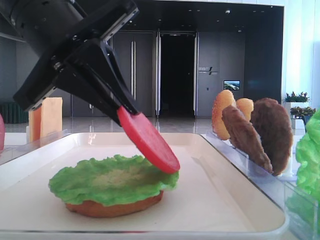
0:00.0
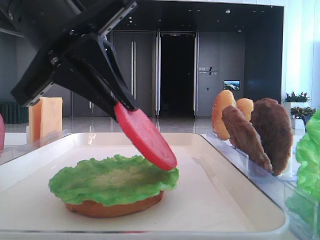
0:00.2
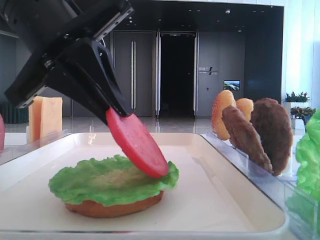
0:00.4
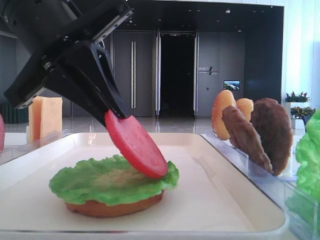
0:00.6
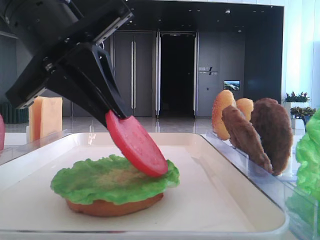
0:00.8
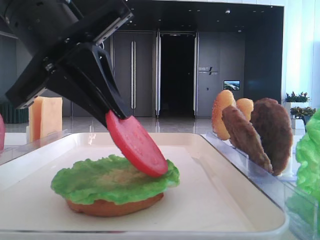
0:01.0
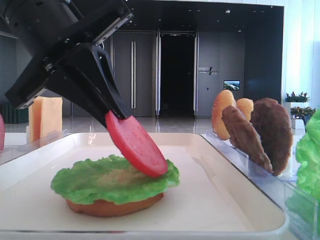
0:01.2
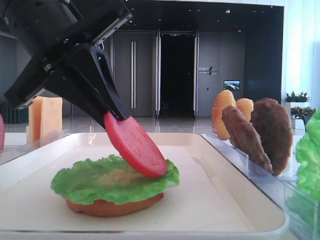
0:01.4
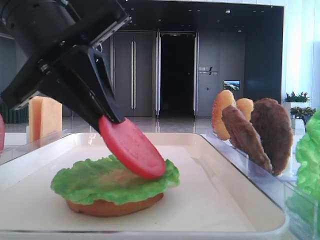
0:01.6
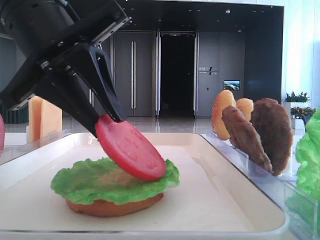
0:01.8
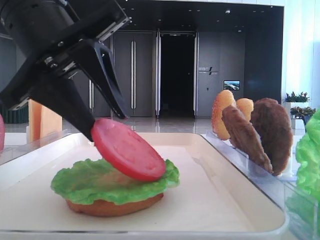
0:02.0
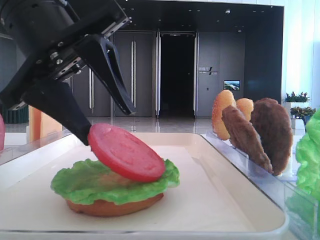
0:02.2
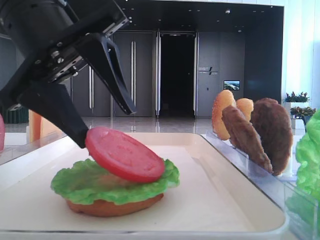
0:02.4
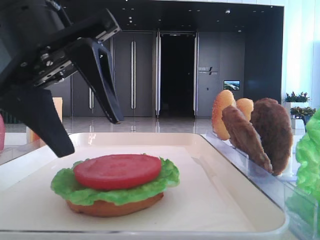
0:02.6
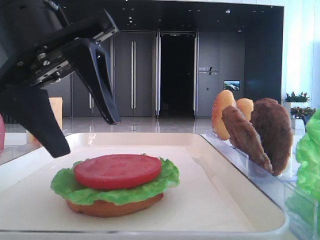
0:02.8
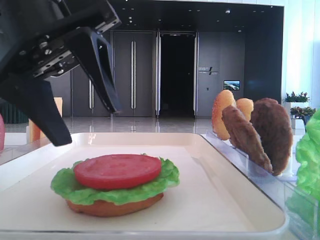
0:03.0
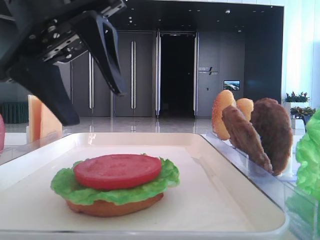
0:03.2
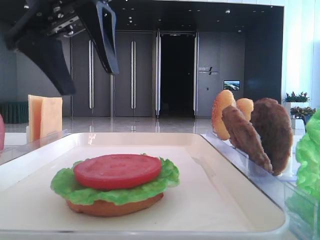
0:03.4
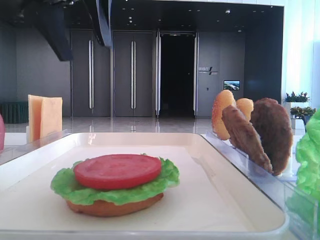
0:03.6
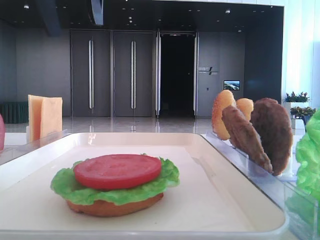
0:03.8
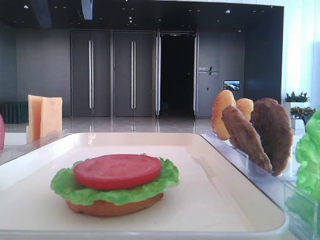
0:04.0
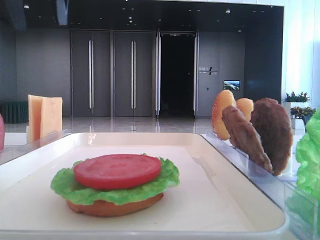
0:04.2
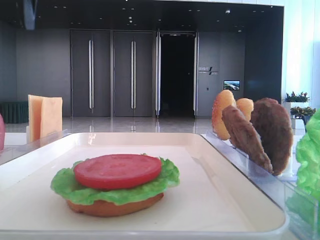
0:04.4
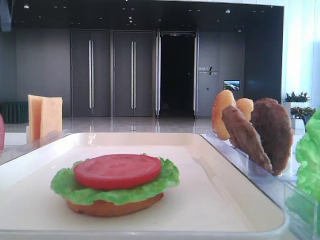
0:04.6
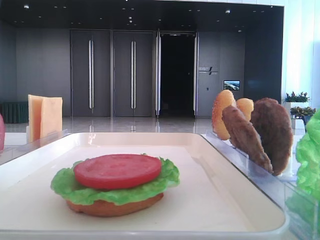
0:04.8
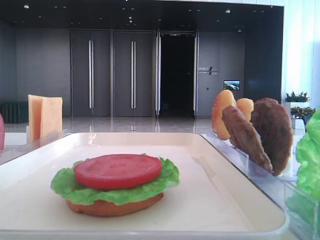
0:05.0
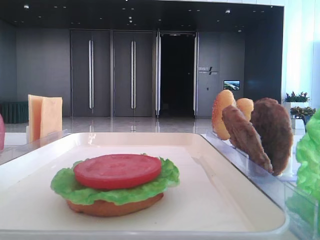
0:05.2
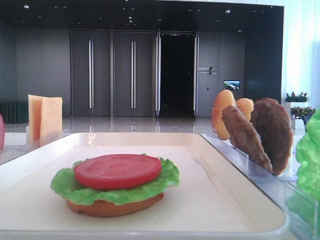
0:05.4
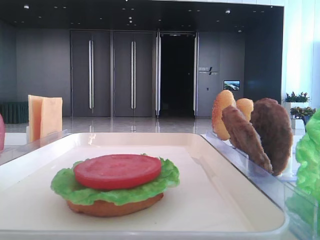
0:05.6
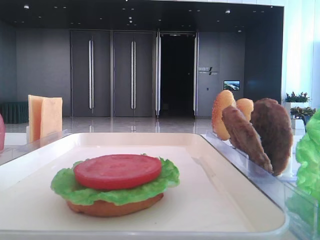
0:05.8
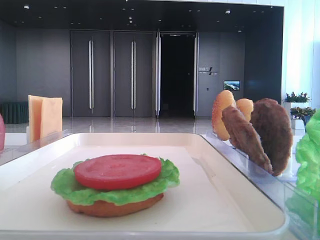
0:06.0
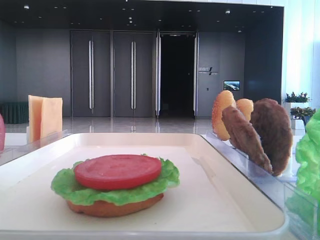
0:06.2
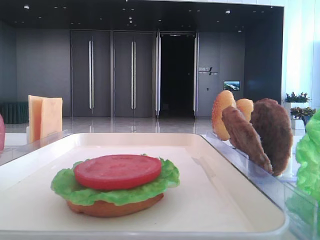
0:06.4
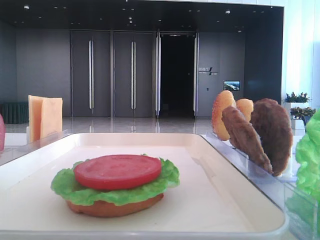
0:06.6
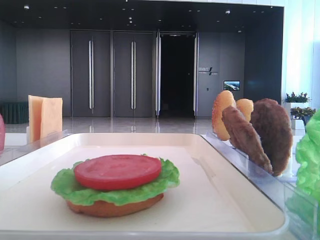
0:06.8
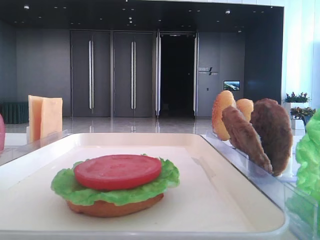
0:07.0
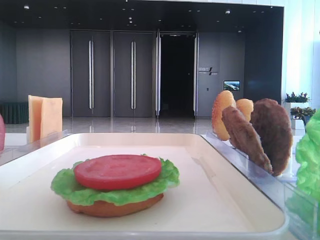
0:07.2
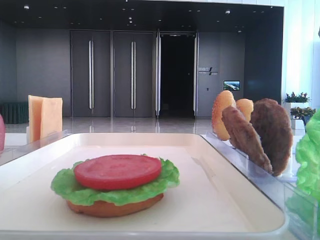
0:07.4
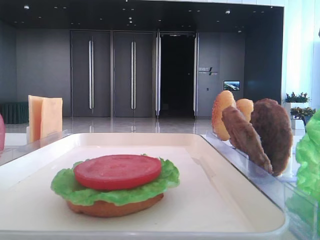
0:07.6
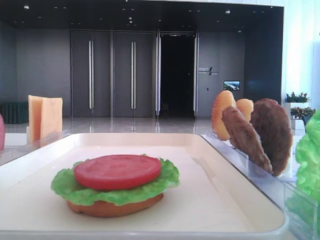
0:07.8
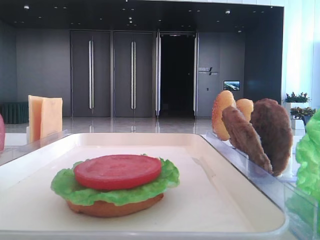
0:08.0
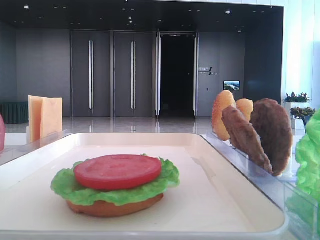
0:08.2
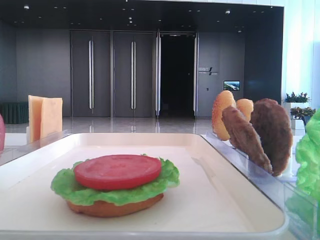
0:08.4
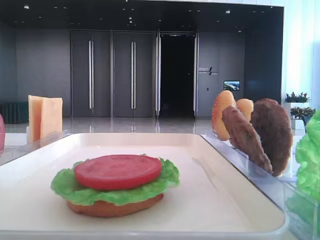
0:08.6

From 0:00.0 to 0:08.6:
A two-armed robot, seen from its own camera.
Step, from 0:00.0 to 0:02.6: Place the tomato slice on the lettuce leaf with the left hand.
From 0:00.0 to 0:01.4: The two grippers keep their place.
From 0:01.4 to 0:02.8: The left gripper opens its fingers.
From 0:02.8 to 0:04.4: The left gripper heads upward, to the left and forward, covering about 20 cm.
From 0:07.2 to 0:08.6: Both grippers stay put.

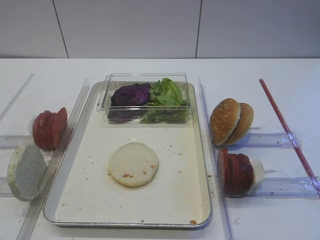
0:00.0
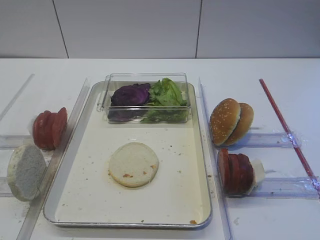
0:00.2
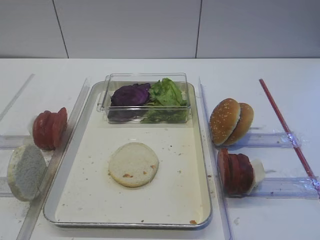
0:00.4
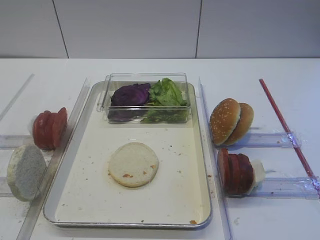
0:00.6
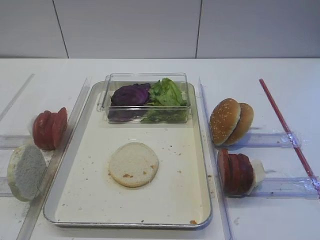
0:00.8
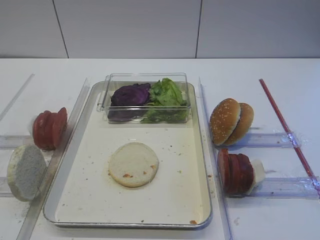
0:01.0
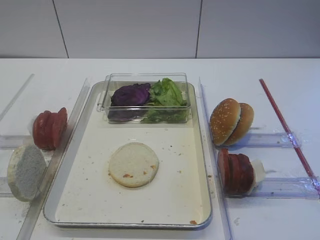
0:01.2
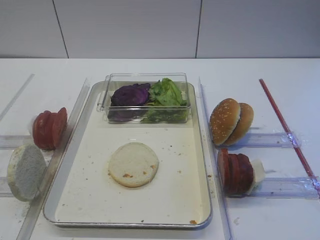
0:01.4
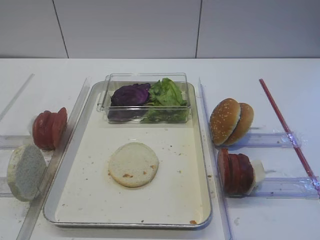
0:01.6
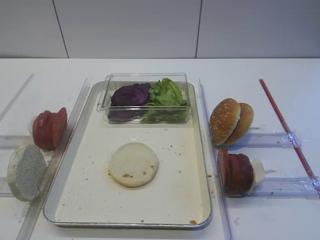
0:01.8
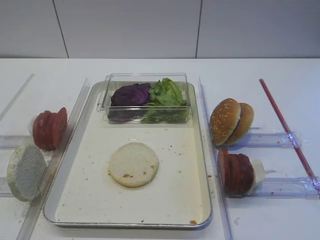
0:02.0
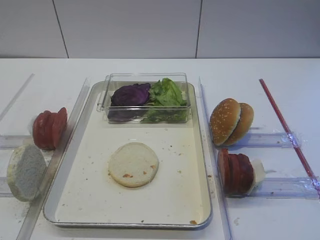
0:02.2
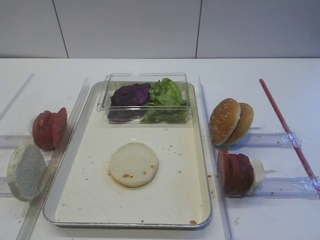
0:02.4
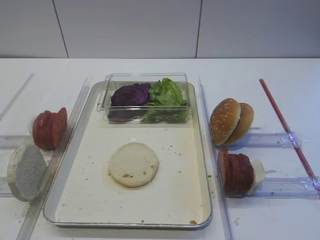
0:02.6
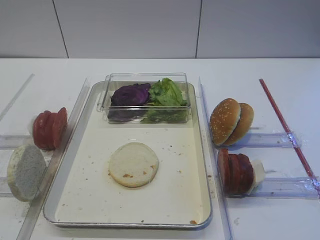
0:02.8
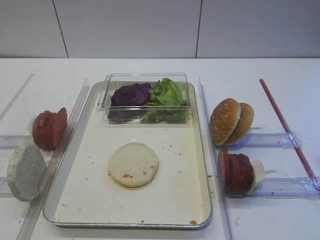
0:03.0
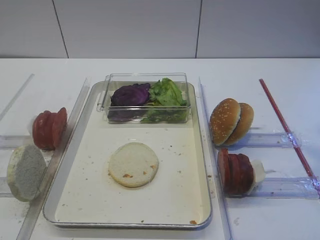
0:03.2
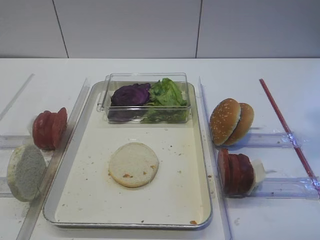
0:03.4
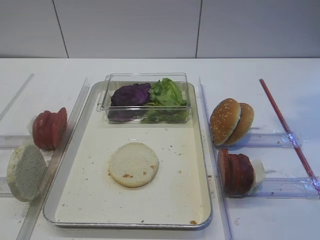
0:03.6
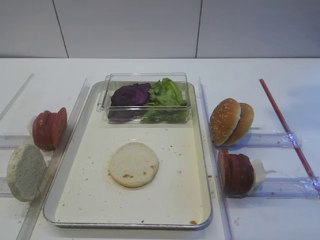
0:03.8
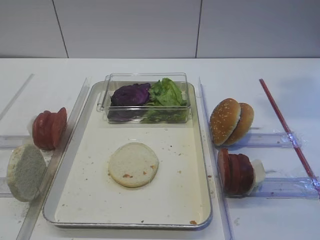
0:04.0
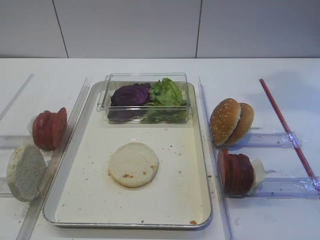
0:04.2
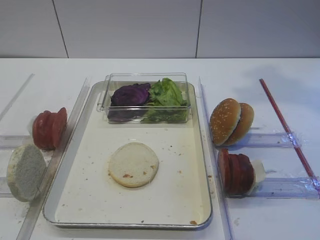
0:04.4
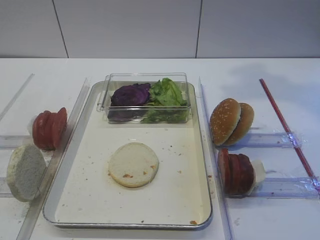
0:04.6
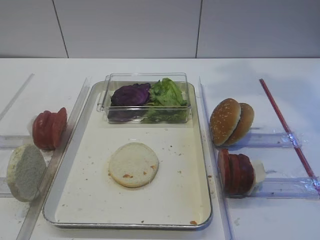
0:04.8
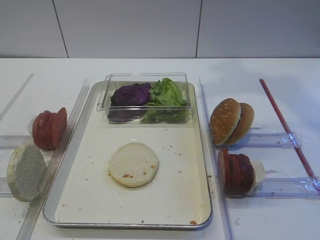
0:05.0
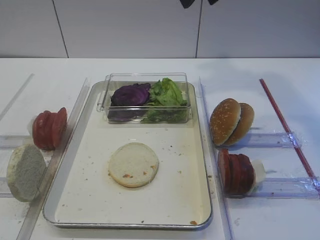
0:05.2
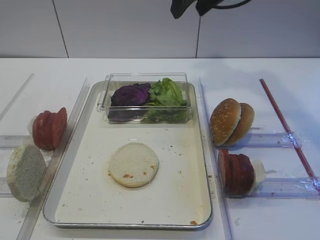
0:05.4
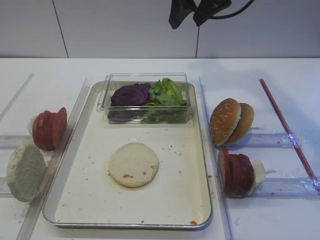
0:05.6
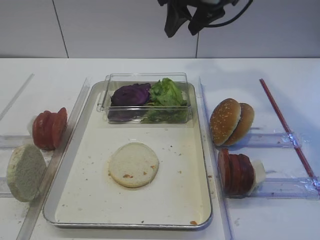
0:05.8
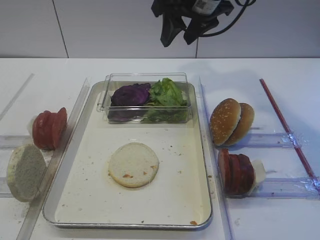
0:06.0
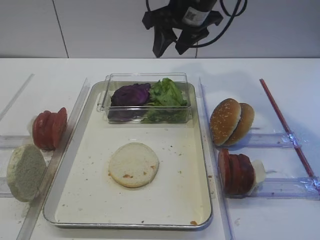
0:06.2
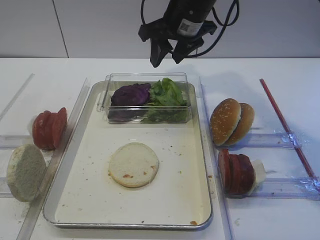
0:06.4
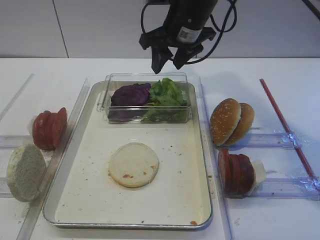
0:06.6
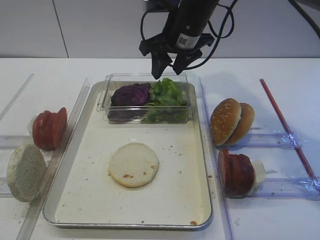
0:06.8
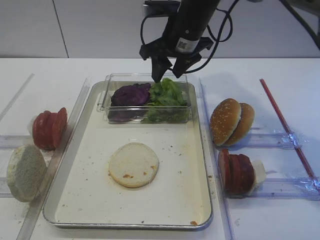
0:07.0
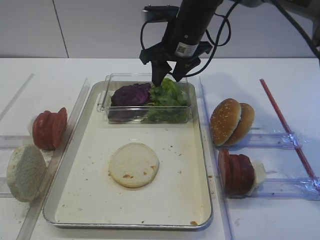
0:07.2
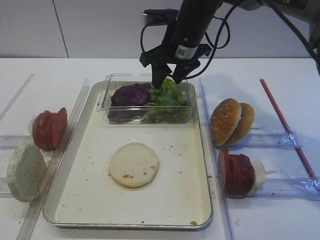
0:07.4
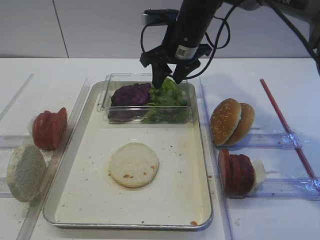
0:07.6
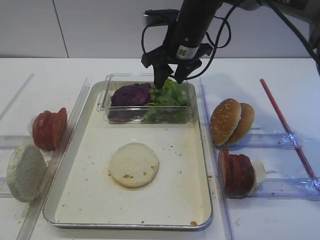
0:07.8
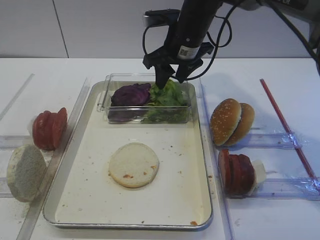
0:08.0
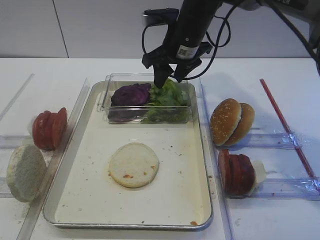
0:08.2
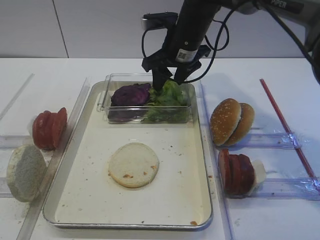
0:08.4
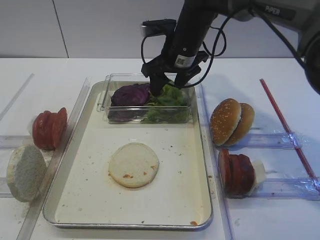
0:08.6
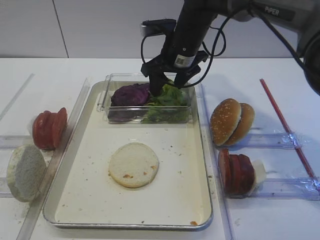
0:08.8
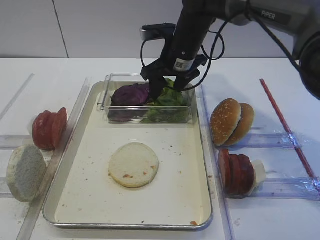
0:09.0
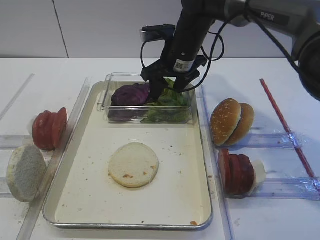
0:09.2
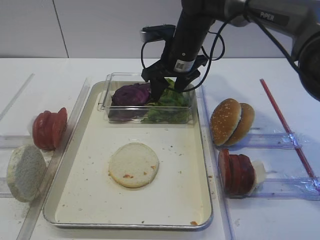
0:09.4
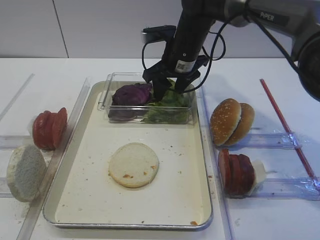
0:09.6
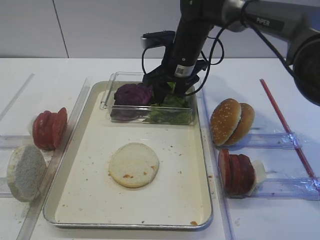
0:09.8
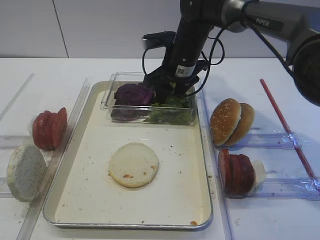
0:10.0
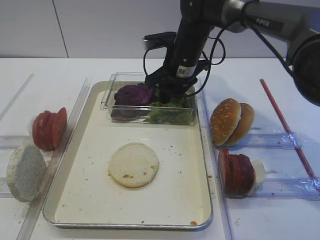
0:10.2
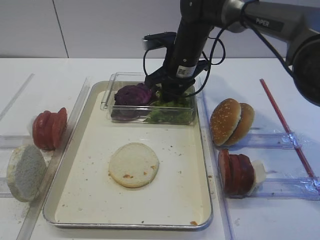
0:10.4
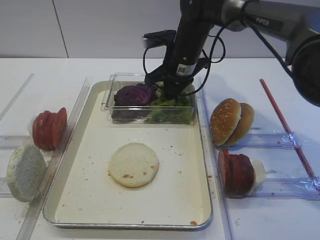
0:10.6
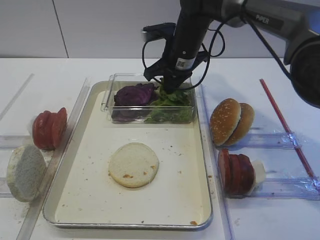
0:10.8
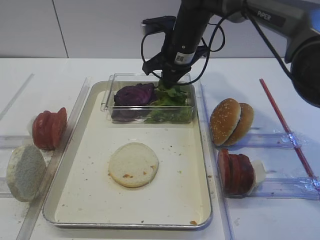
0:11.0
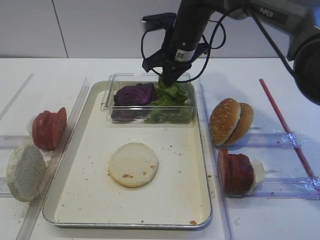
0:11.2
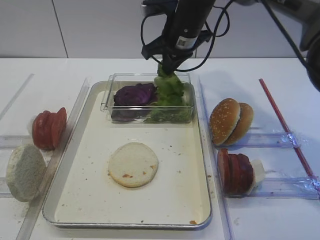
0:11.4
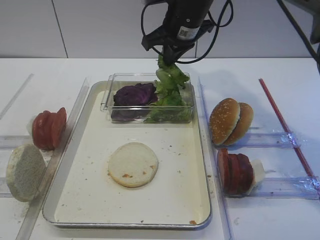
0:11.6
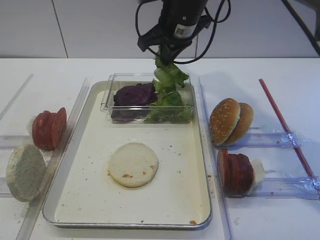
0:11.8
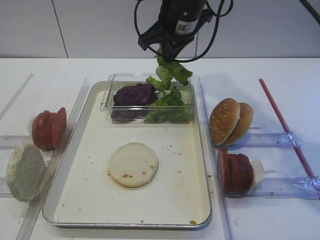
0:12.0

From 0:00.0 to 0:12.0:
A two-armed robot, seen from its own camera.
Step, from 0:00.0 to 0:11.8: Pick up the lettuce leaf with the right gripper.
From 0:04.4 to 0:06.0: The right gripper travels downward, forward and to the left by roughly 20 cm.
From 0:06.0 to 0:07.6: The right gripper is displaced downward by roughly 10 cm.
From 0:07.6 to 0:09.0: The grippers move only a little.
From 0:09.0 to 0:10.4: The right gripper closes its fingers.
From 0:10.4 to 0:12.0: The right gripper travels upward by approximately 10 cm.

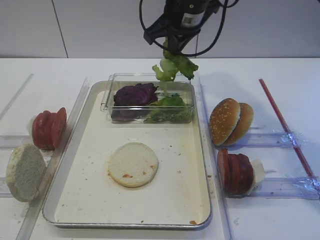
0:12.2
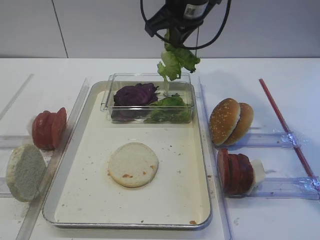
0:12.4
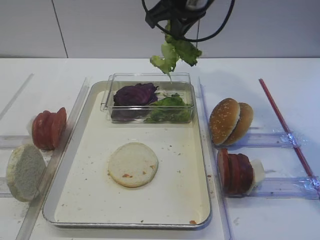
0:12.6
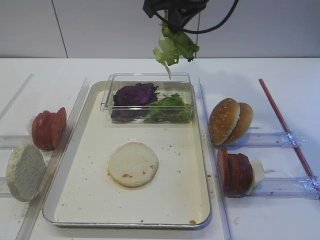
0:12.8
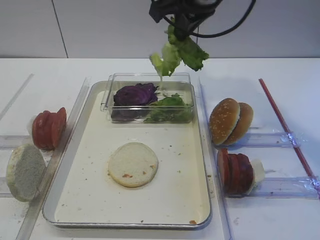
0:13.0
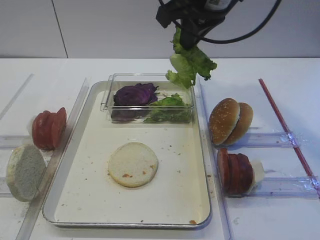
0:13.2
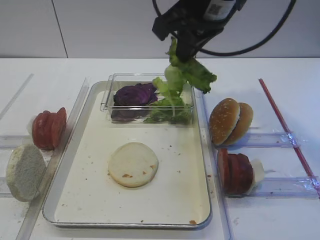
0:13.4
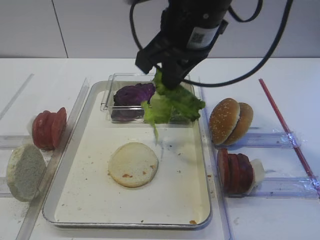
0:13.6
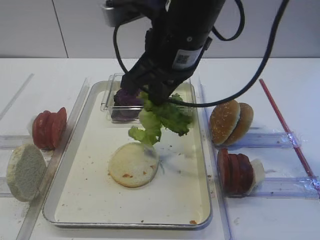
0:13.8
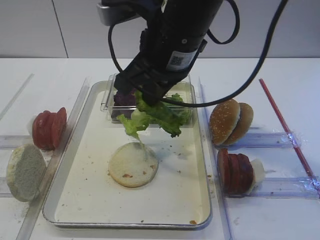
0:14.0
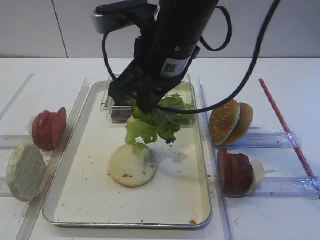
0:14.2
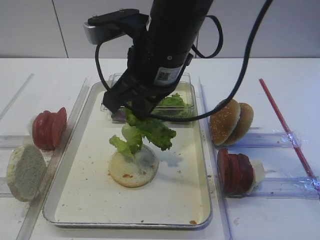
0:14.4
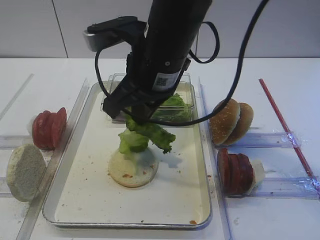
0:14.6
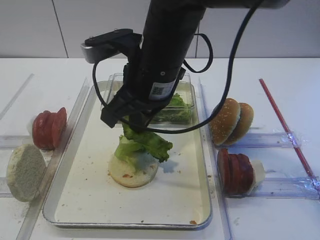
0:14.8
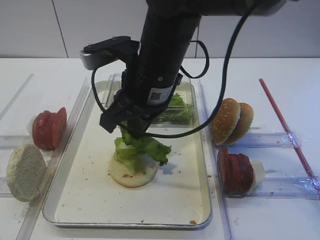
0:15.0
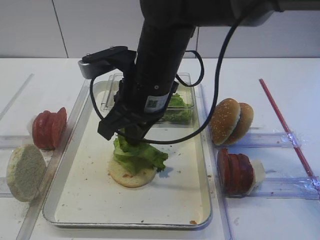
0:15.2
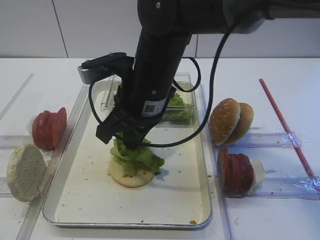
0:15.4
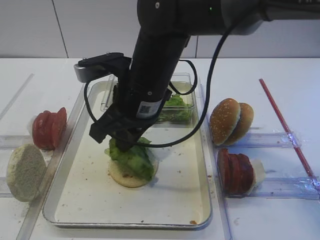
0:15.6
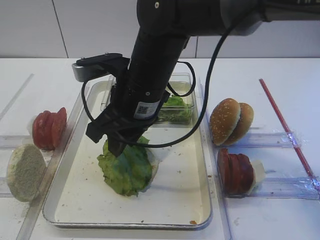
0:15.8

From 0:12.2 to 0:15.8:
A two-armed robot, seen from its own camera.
From 0:12.2 to 0:14.0: The right gripper travels backward by approximately 15 cm.
From 0:14.0 to 0:15.8: The right gripper goes about 5 cm downward, and opens up.
